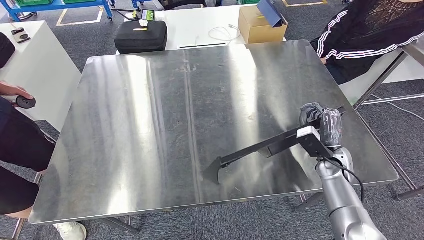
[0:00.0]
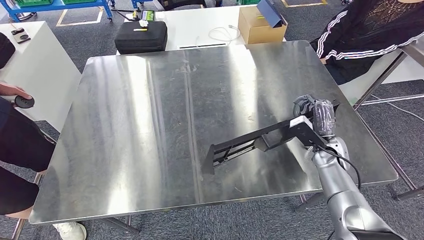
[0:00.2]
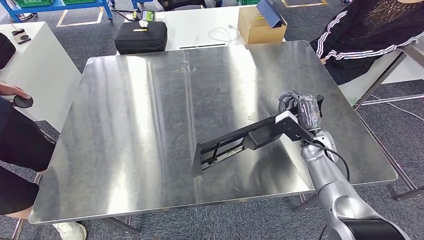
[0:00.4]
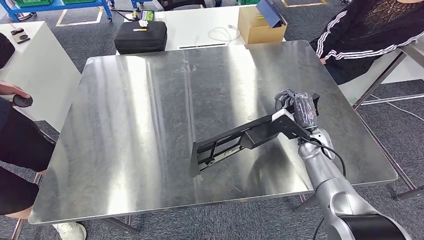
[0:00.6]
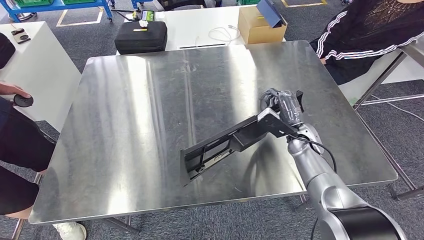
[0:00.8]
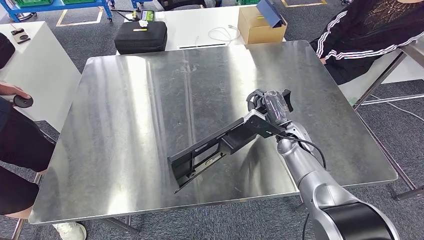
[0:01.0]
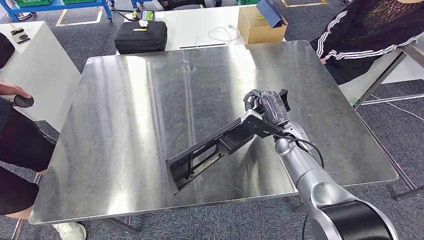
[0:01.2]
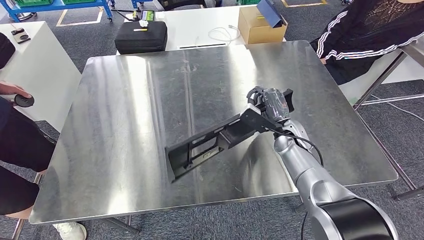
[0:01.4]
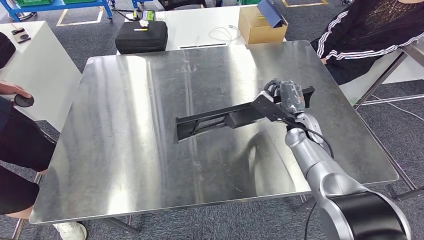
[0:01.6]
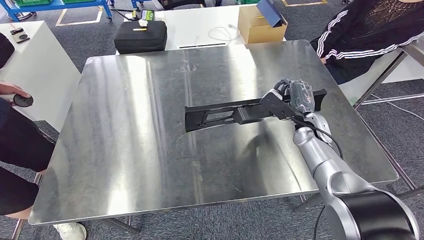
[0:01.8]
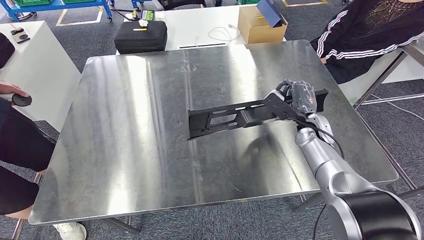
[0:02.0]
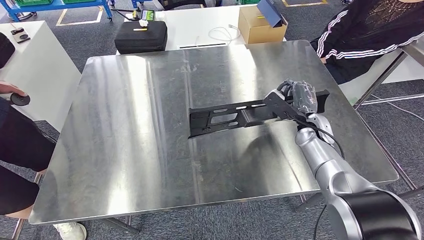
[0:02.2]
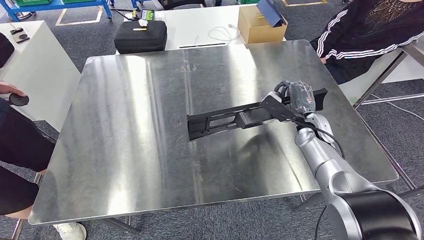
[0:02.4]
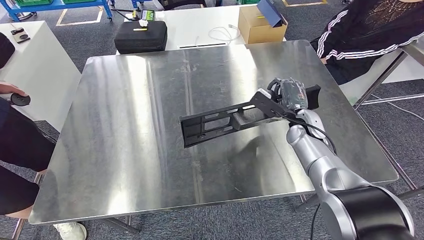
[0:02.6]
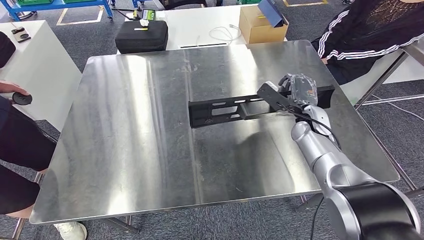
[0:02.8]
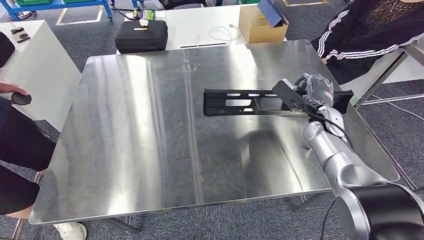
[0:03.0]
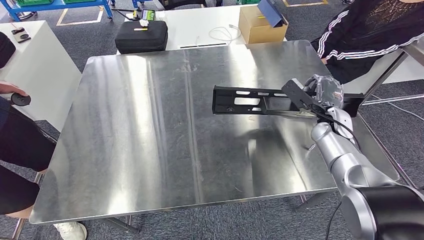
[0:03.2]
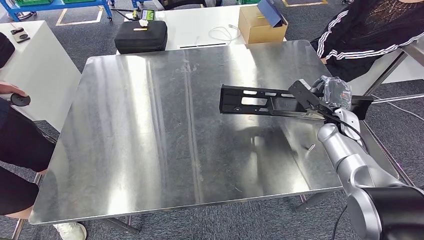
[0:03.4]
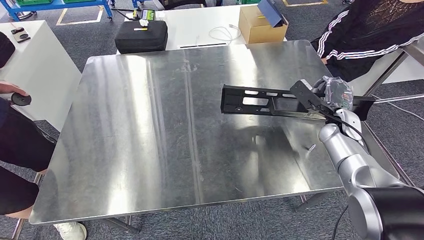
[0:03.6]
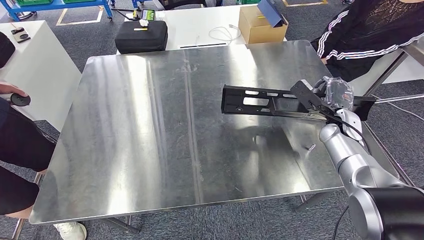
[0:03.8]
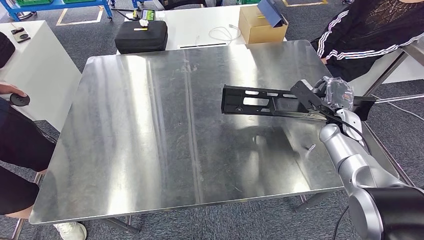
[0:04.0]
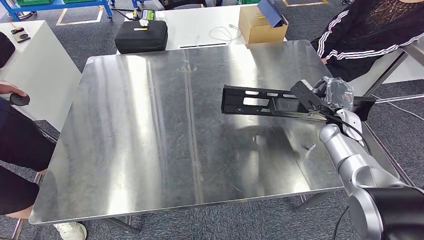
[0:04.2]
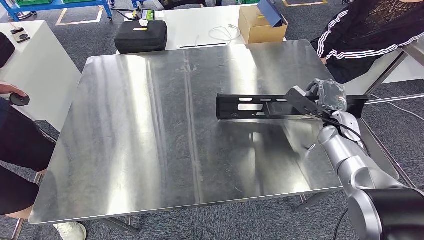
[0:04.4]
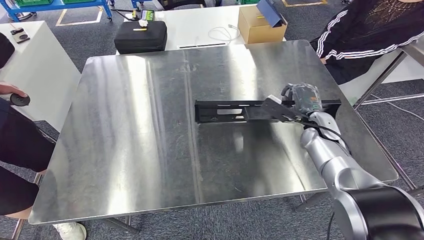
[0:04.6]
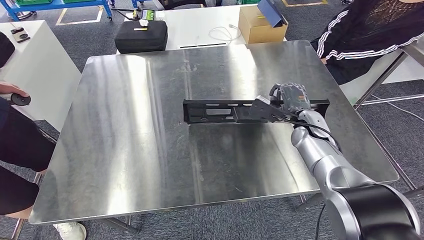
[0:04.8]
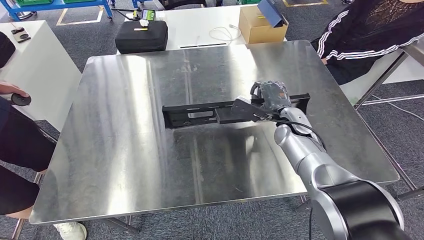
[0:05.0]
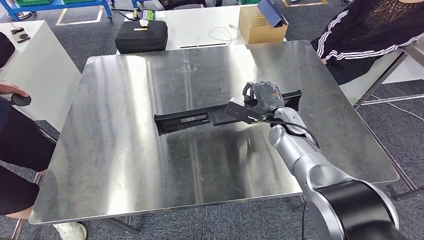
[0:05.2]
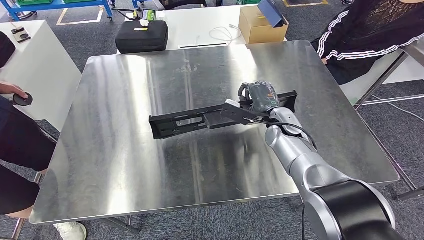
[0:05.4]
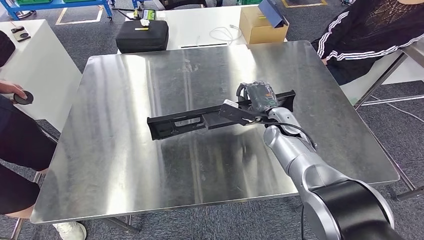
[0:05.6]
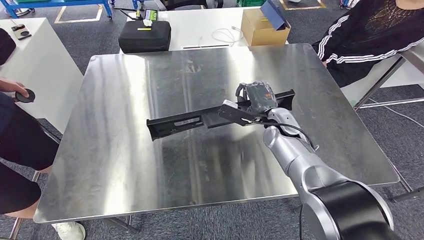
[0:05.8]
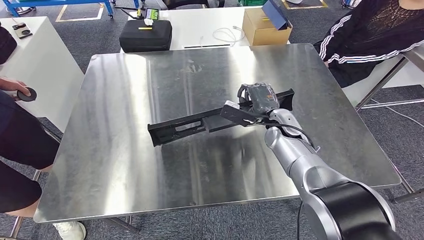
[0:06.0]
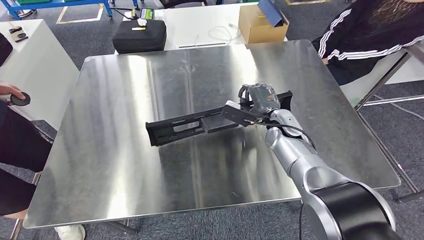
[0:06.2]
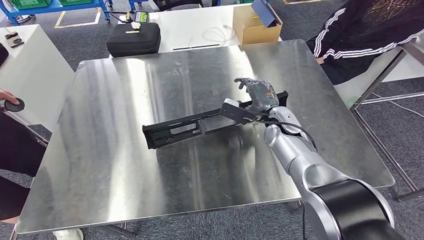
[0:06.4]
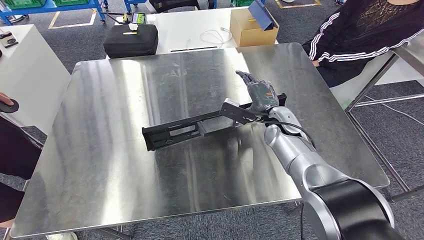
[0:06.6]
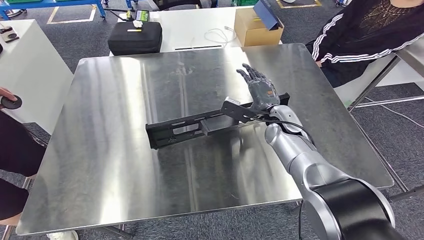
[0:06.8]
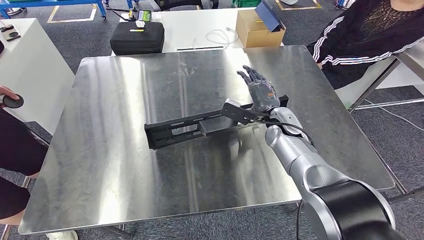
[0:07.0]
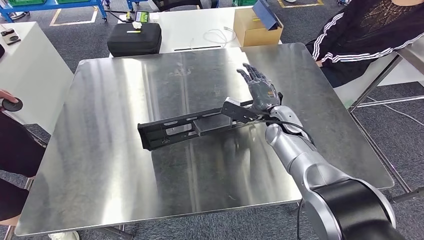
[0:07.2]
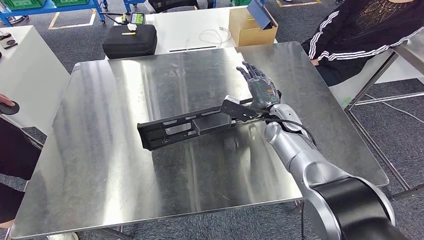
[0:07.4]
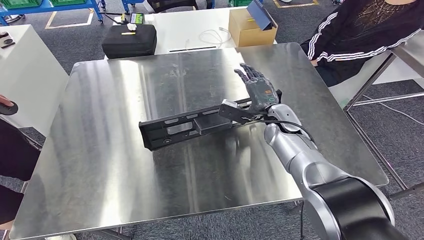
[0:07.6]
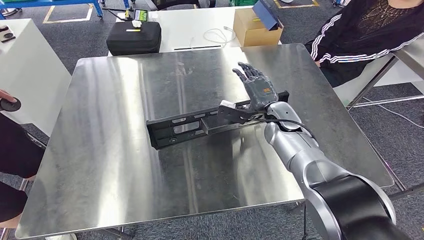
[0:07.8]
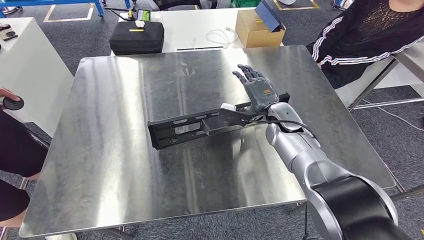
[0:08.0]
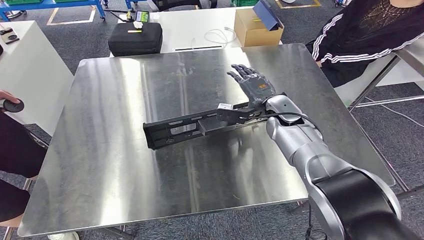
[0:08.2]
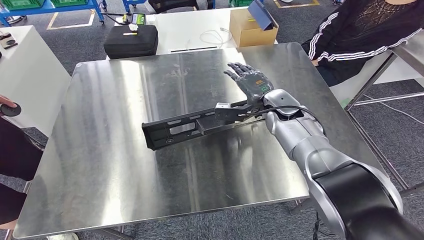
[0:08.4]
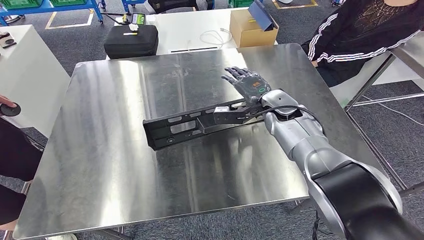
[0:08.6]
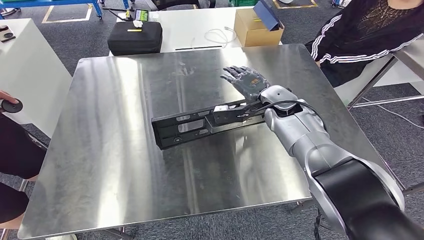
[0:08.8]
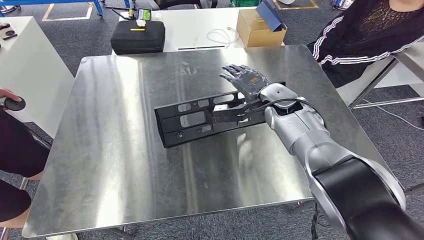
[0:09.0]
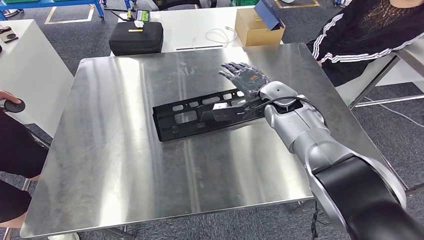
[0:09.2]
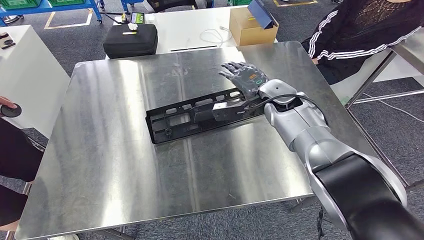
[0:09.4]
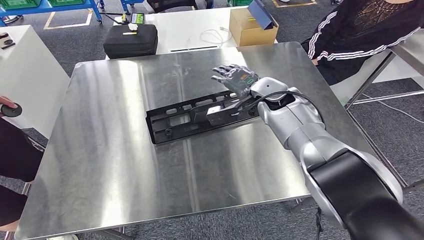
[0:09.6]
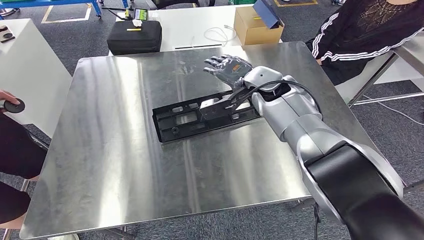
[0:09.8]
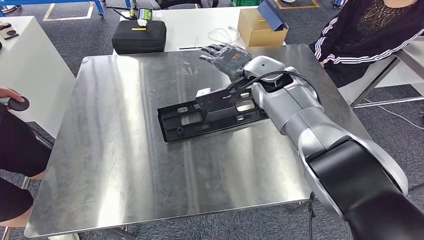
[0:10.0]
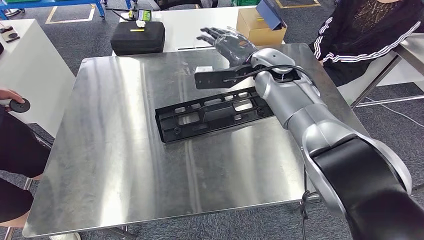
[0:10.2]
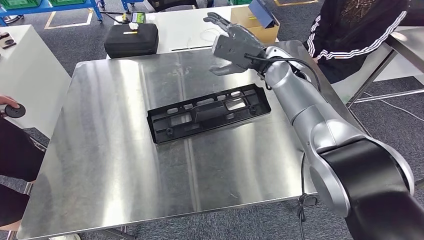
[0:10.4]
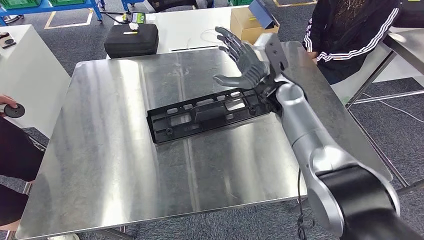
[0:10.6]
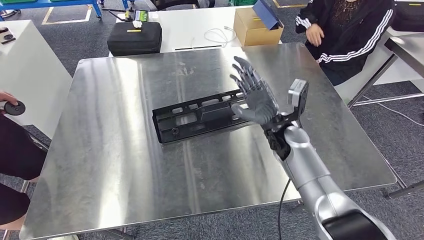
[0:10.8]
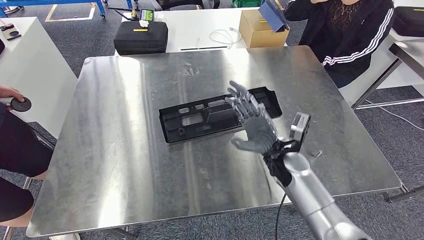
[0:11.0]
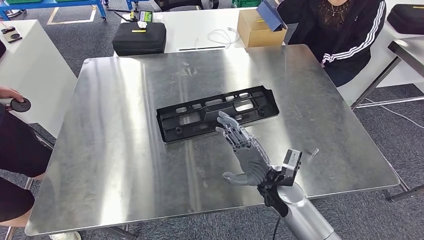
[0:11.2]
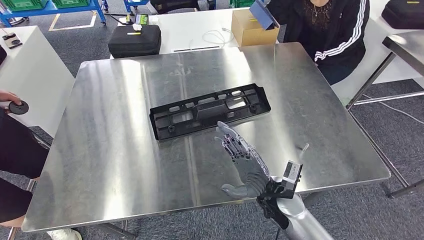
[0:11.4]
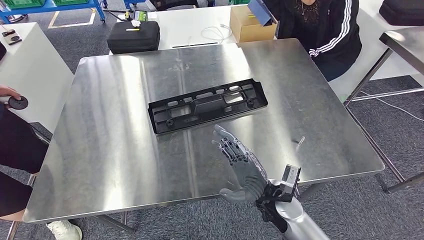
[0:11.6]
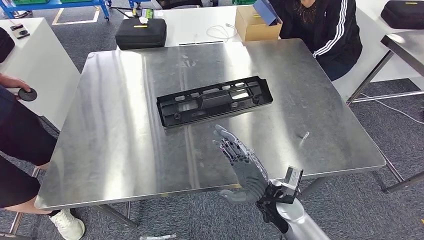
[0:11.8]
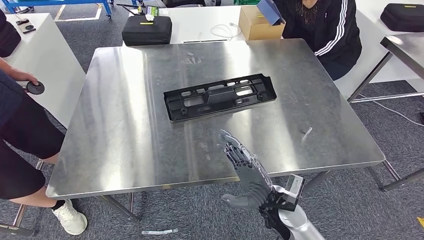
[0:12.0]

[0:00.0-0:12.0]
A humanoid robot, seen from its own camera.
Step, 0:00.0 to 0:07.4: Insert the large material into the corresponding slot on the workbench.
0:00.0 to 0:01.6: The right hand shifts roughly 15 cm to the left, forward and upward.
0:01.6 to 0:03.0: The right hand moves to the right, about 5 cm.
0:03.0 to 0:04.4: The hands move only a little.

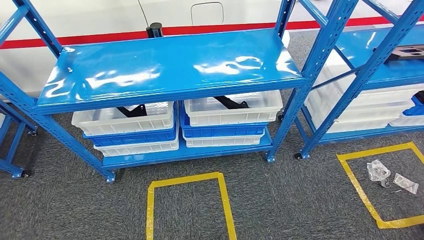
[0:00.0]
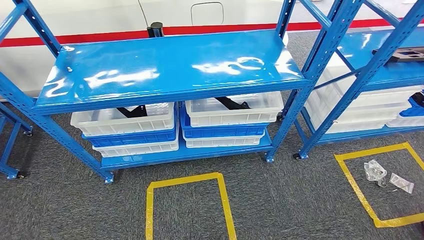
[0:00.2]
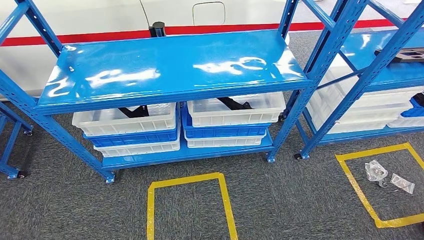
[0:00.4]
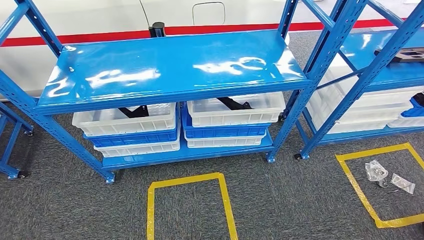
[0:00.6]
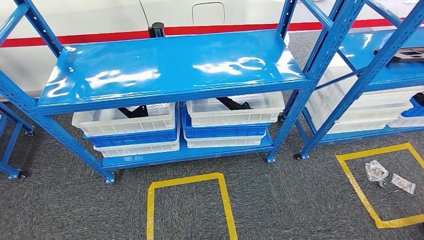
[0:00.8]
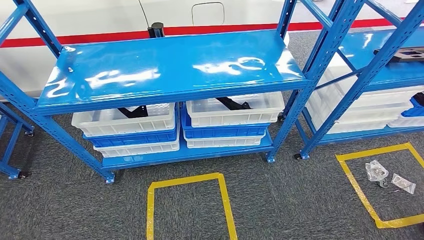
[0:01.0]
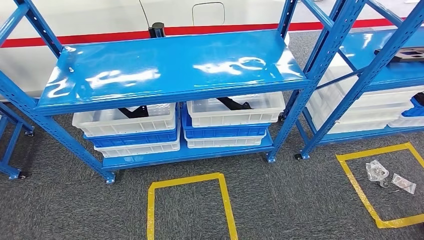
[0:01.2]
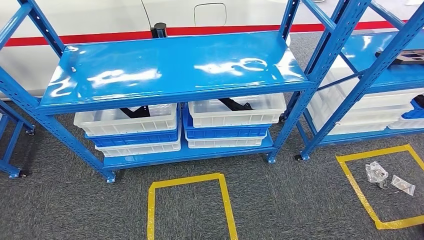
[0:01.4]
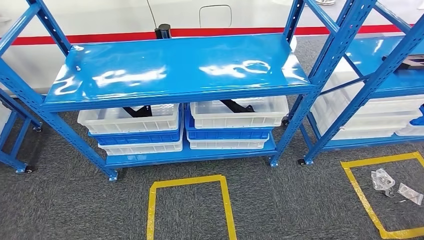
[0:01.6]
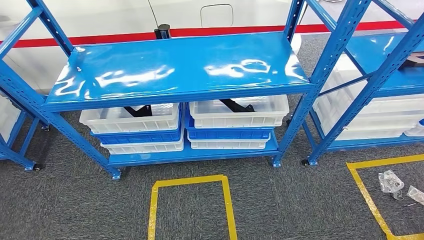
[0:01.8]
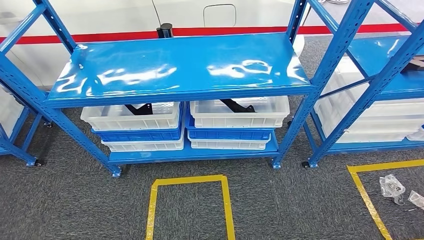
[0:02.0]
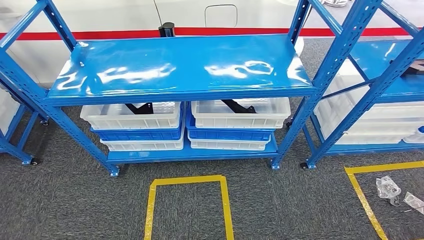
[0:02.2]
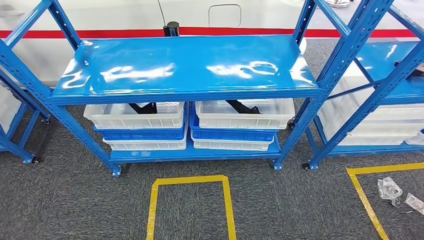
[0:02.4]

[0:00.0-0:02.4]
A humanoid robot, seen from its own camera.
Step, 0:00.0 to 0:02.4: Move to the initial position of the shelf.
0:00.0 to 0:01.2: Both hands stay put.
